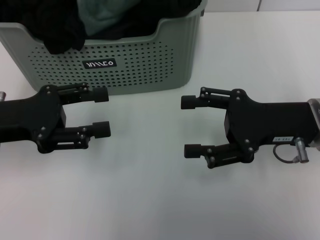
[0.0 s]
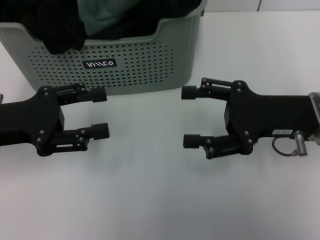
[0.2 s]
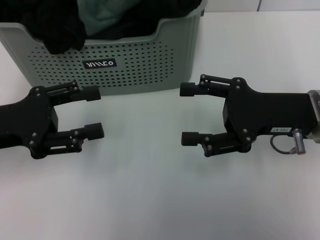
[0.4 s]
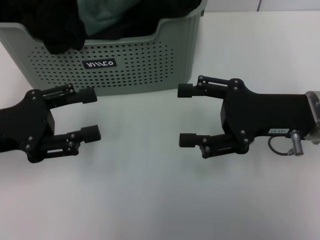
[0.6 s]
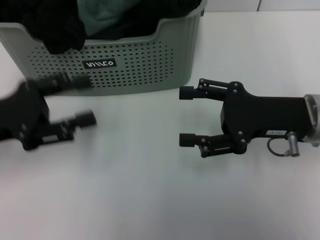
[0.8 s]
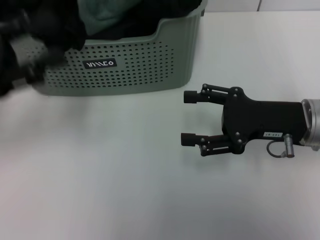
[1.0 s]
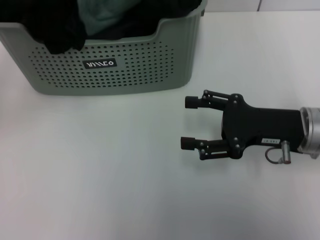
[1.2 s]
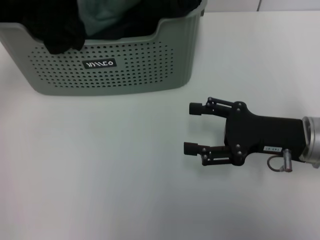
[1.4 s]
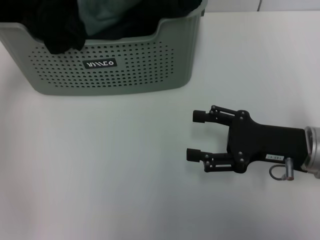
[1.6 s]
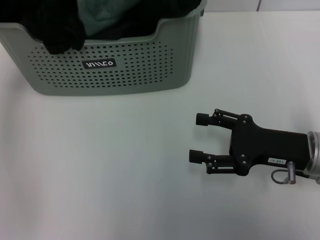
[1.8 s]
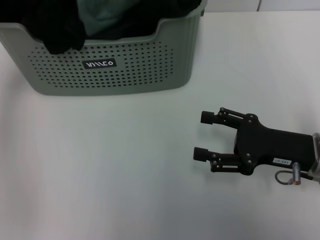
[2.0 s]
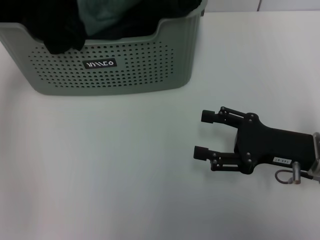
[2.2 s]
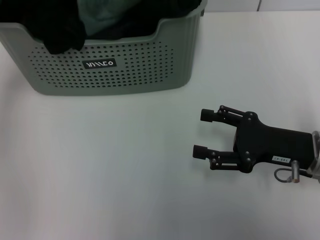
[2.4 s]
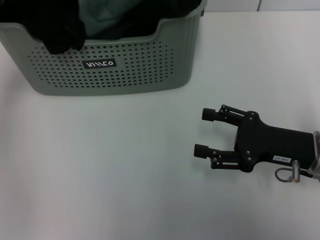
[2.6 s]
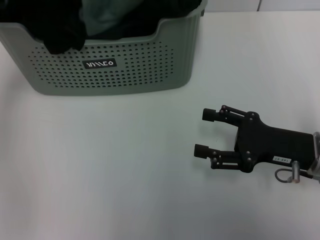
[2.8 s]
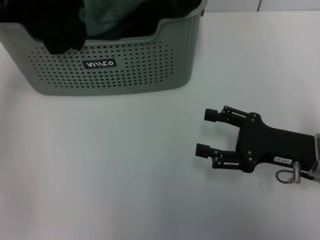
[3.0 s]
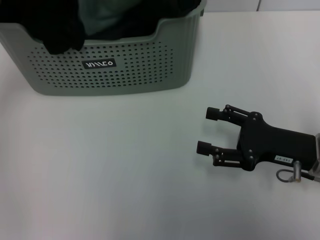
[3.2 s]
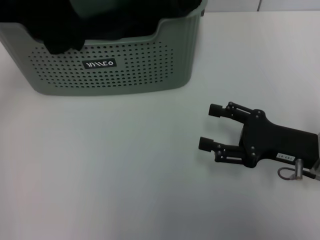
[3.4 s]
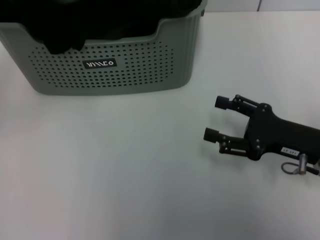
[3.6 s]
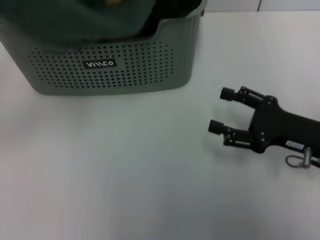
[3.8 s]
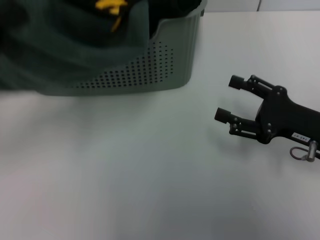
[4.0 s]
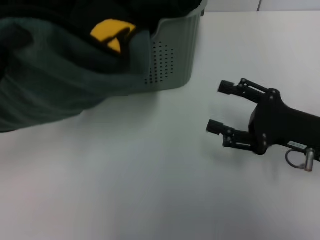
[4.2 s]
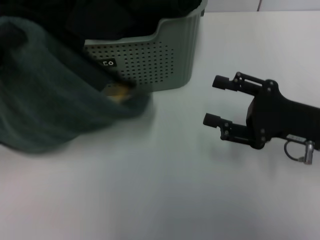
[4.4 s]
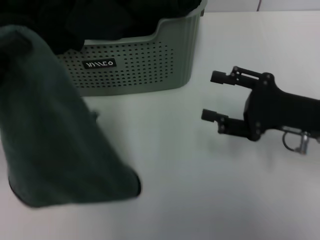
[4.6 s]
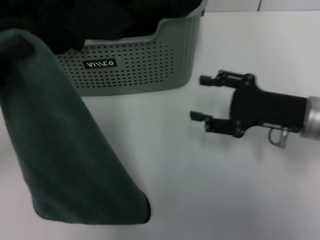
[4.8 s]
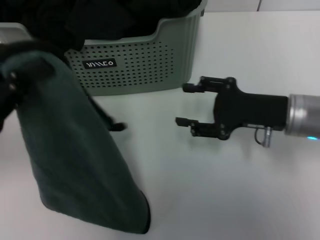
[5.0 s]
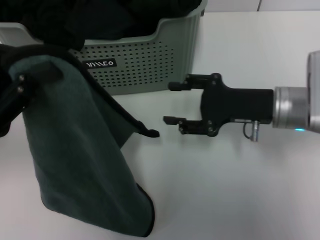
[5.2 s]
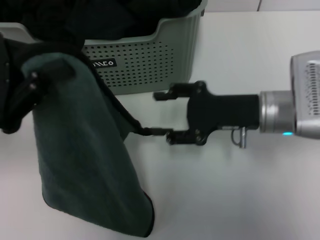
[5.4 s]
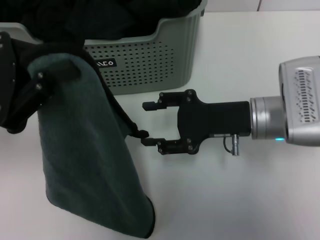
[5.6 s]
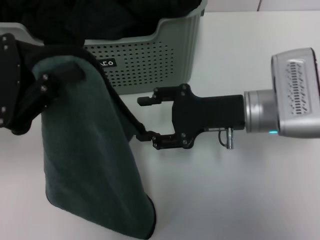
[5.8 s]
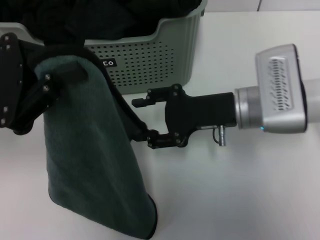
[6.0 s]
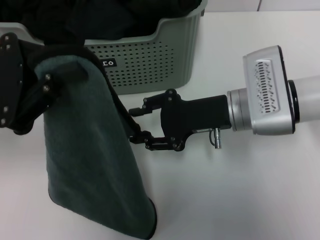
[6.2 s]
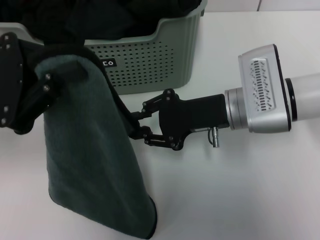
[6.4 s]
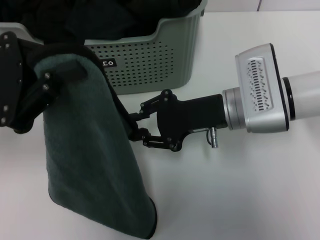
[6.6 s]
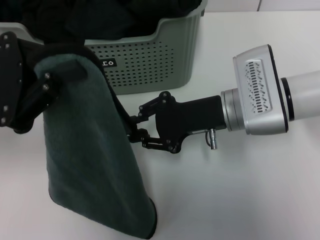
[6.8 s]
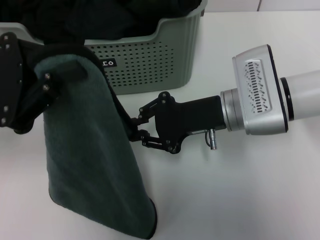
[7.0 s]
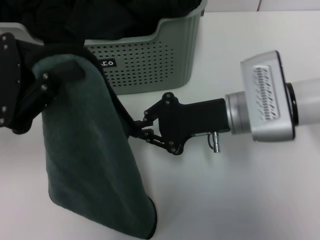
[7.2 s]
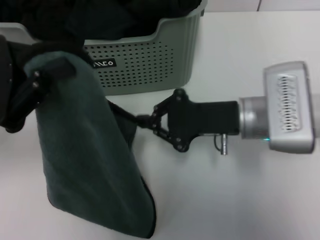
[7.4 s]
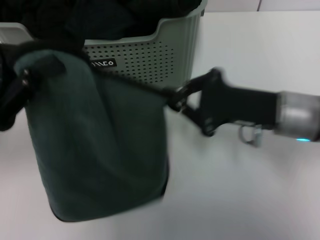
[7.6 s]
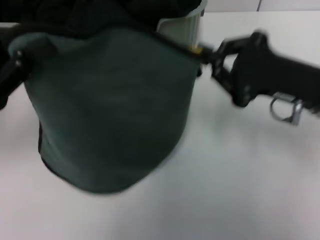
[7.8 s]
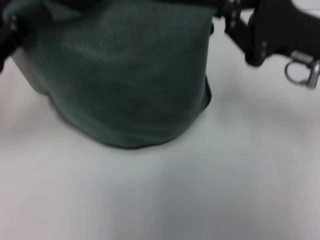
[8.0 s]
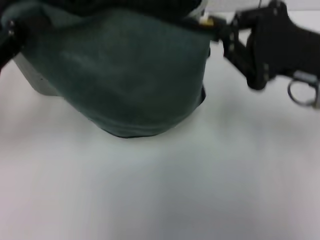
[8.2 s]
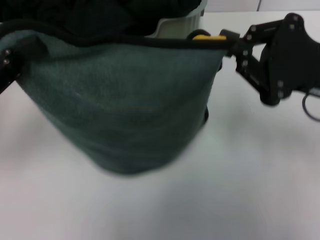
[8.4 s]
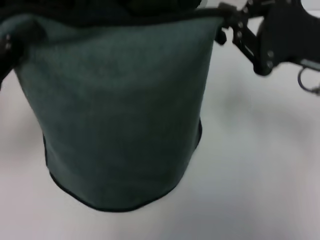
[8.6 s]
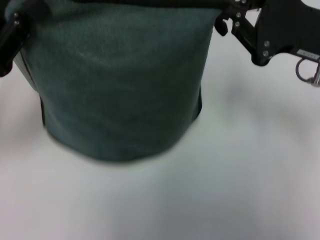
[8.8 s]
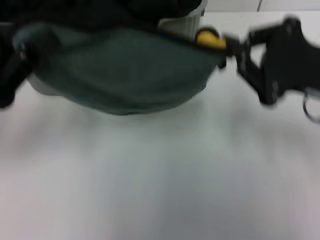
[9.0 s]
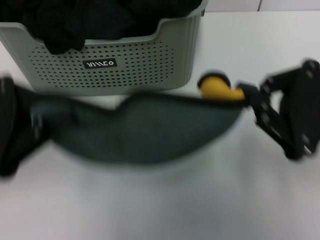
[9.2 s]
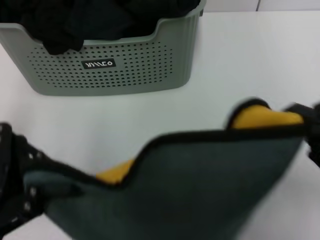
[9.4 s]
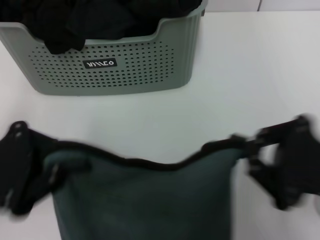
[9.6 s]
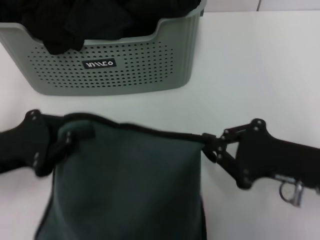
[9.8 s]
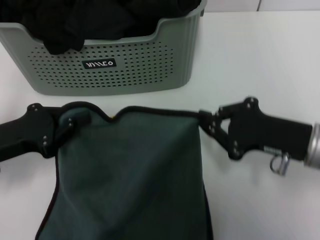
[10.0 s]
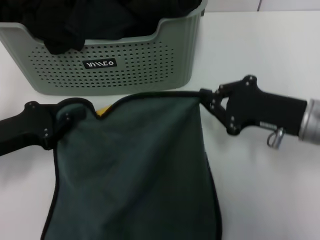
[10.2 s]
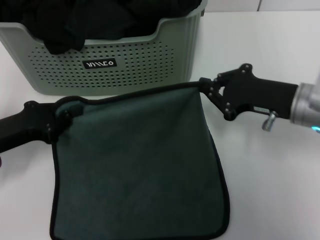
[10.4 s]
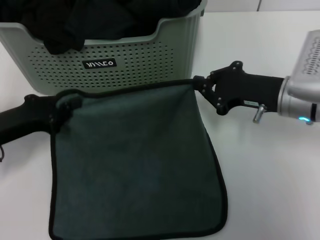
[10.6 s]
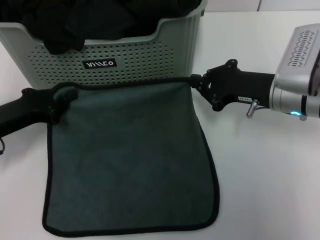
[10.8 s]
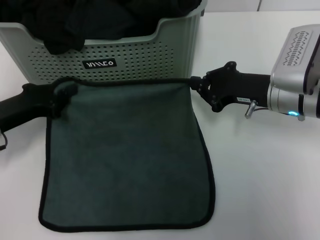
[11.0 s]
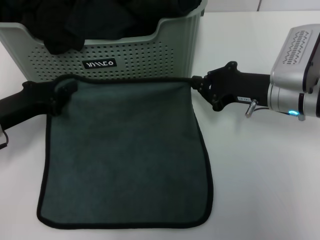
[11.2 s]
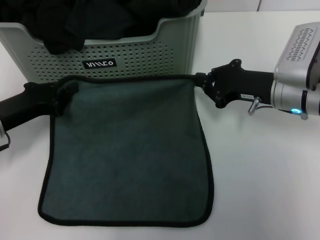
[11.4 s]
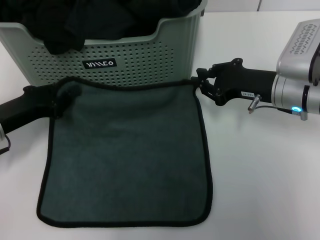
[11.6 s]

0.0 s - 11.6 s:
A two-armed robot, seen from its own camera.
Task of the whole recording: pick up the towel from the storage box and lay it flat on the table.
Step, 0.0 s - 2.6 s: Pick up a towel with the left gripper.
Step, 3.0 s - 7.2 s: Spread the towel flat with the left gripper.
0.0 s - 1.4 s: The left gripper is displaced upward and forward by about 15 cm.
1.4 s - 2.8 s: The left gripper moves approximately 5 cm.
2.8 s - 4.4 s: The left gripper moves backward, approximately 15 cm, and closes up.
4.4 s - 5.8 s: The right gripper goes some 10 cm to the left.
5.8 s - 7.2 s: The right gripper closes up.
7.2 s - 8.8 s: The right gripper travels to the right and upward by some 15 cm.
8.8 s - 10.2 s: The two grippers go roughly 10 cm downward. The right gripper moves some 10 cm backward and comes back.
10.2 s - 11.6 s: The right gripper moves forward, some 5 cm.

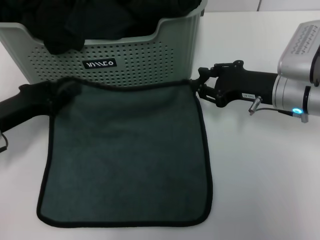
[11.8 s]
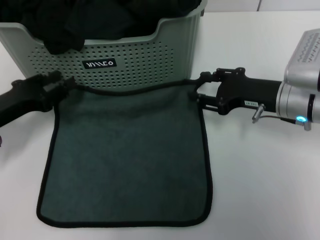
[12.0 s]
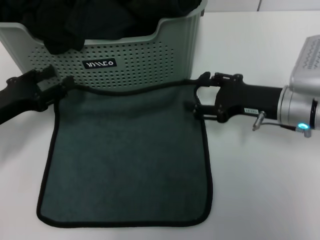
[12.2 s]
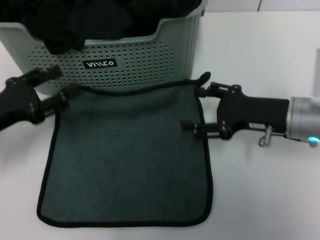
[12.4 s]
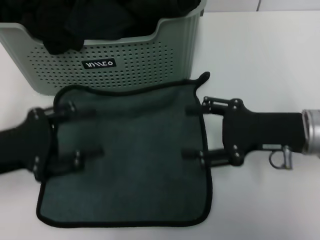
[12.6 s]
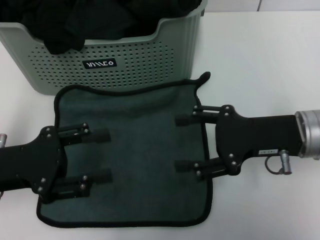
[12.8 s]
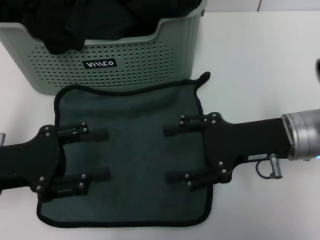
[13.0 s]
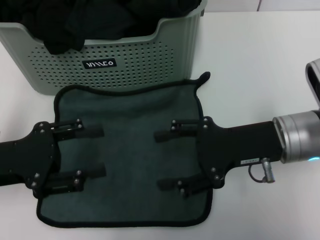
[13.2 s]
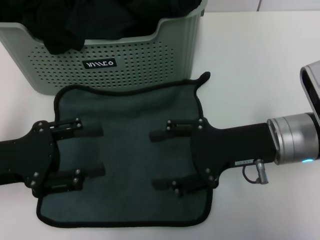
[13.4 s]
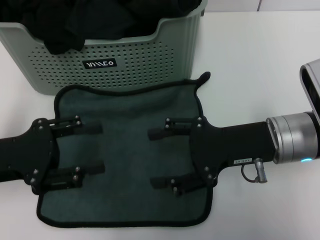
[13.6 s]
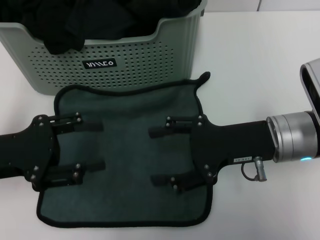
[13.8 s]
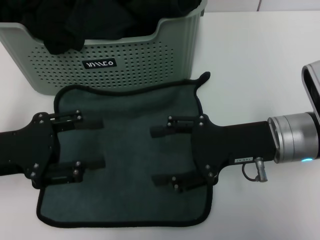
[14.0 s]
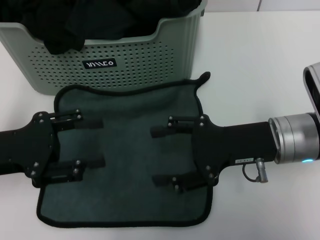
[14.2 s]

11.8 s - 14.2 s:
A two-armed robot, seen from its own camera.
Task of the whole recording: pick up the towel from the storage box and lay it flat on the table.
11.8 s - 13.0 s: The grippers both shift backward by about 5 cm. The right gripper opens up; the left gripper opens.
13.0 s - 14.2 s: The grippers stay close to where they were, moving slightly.
